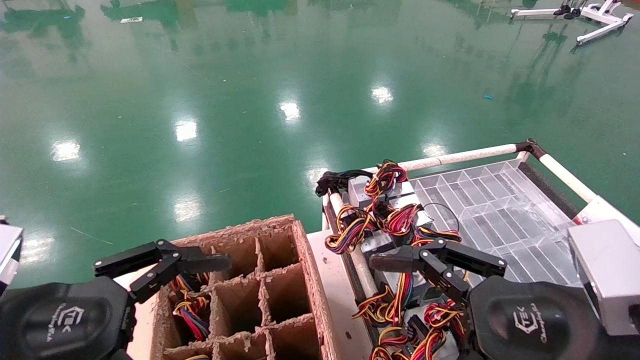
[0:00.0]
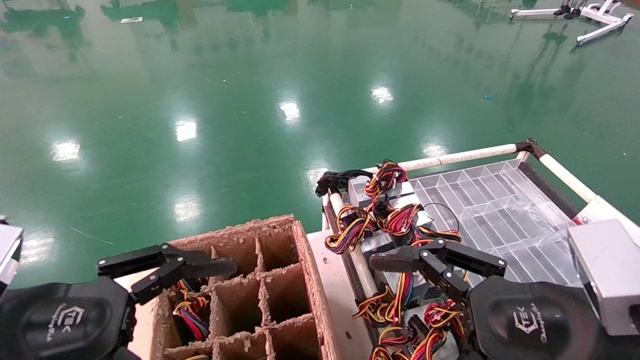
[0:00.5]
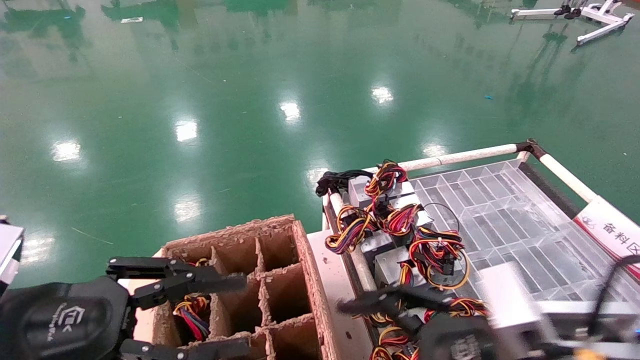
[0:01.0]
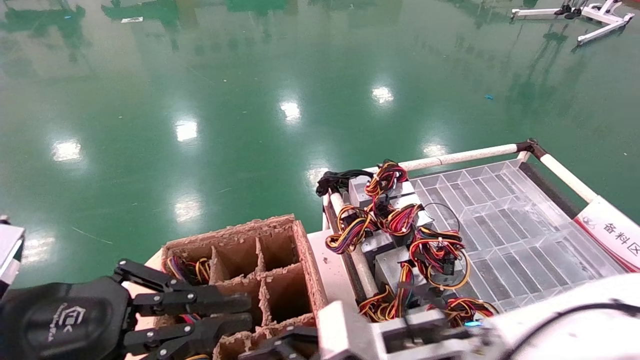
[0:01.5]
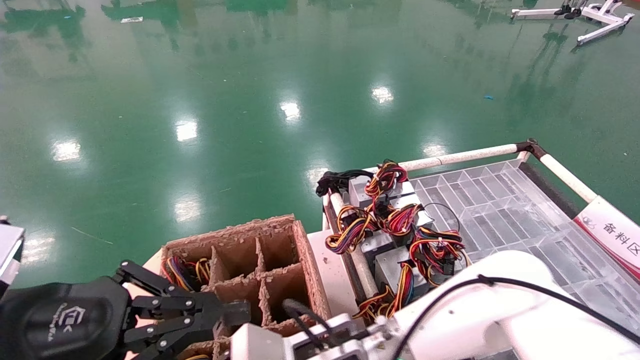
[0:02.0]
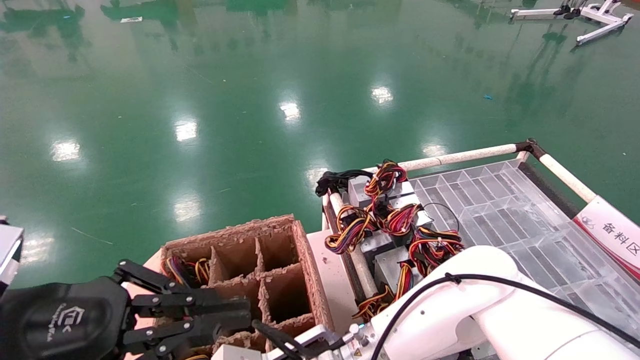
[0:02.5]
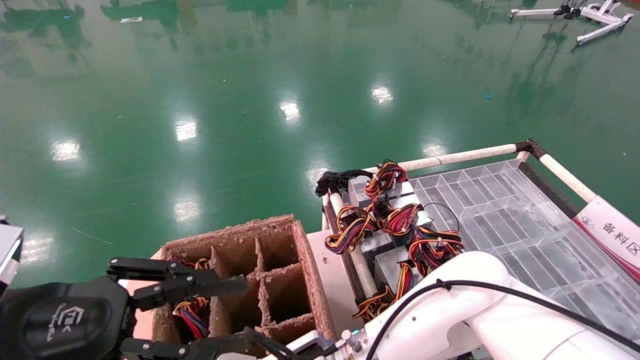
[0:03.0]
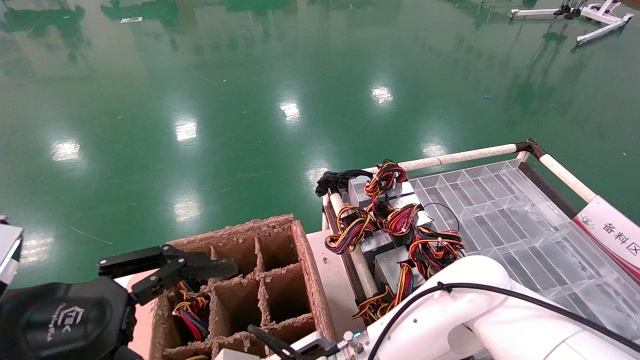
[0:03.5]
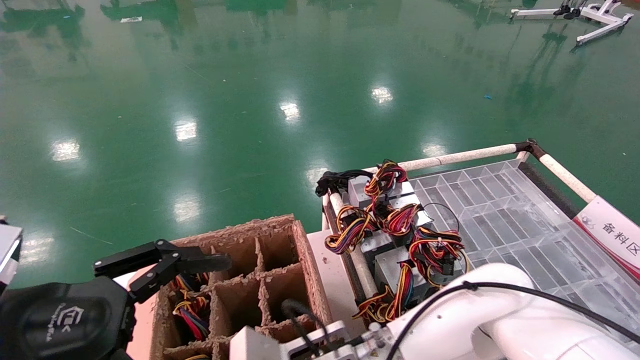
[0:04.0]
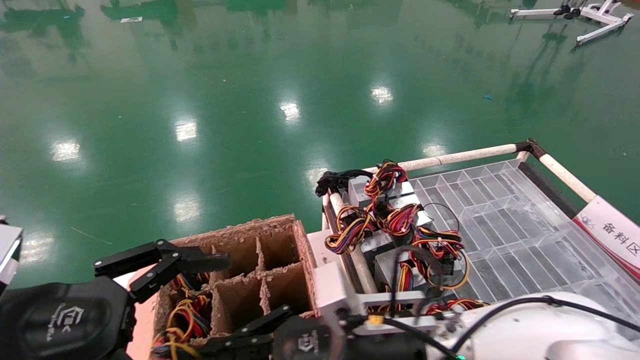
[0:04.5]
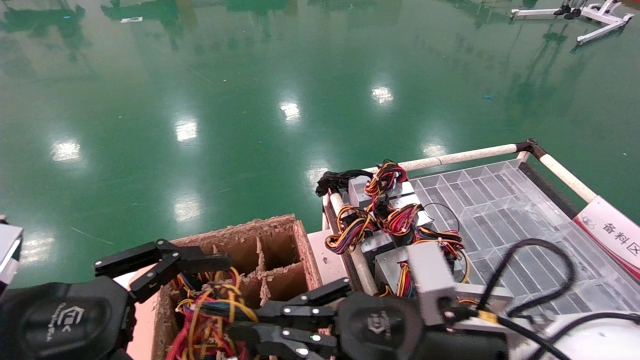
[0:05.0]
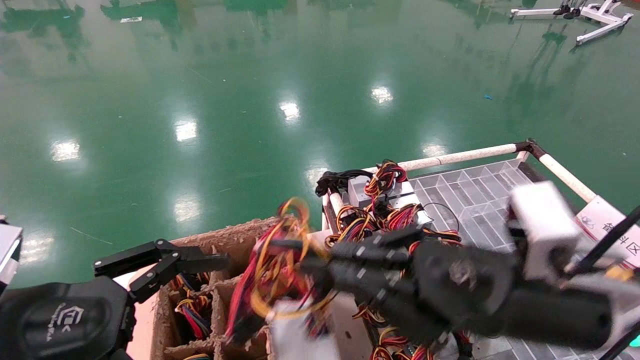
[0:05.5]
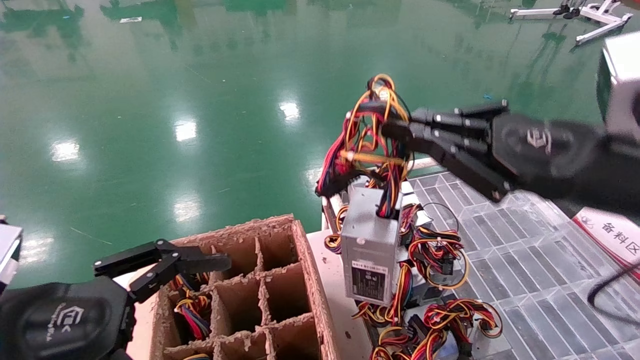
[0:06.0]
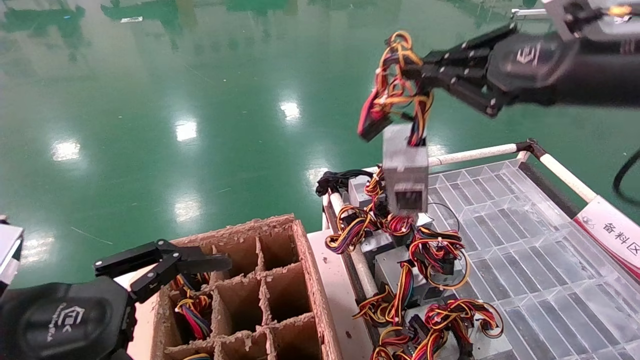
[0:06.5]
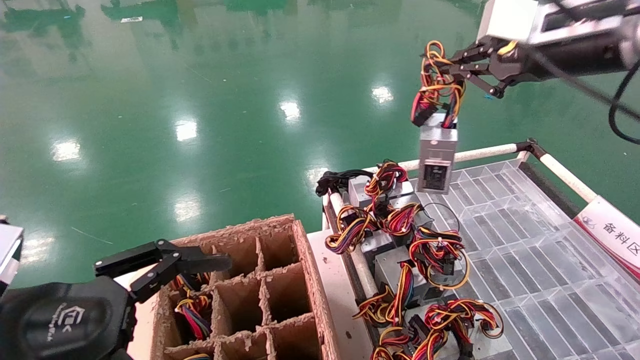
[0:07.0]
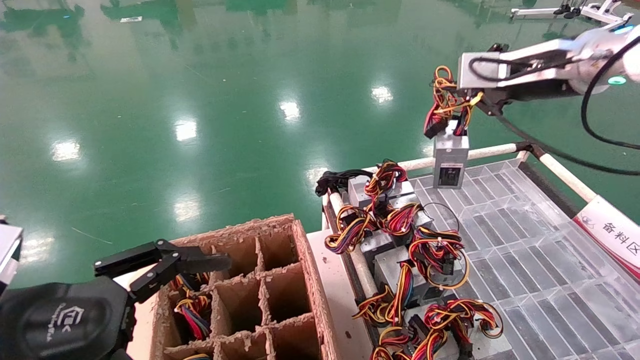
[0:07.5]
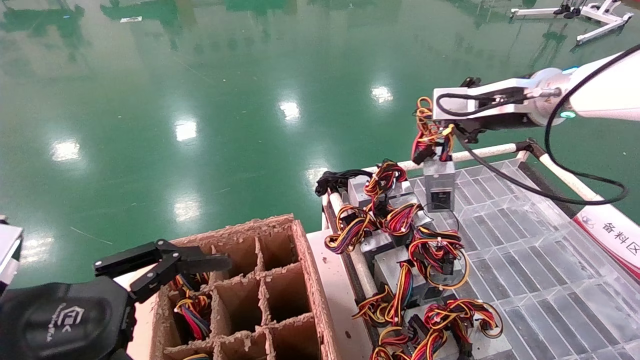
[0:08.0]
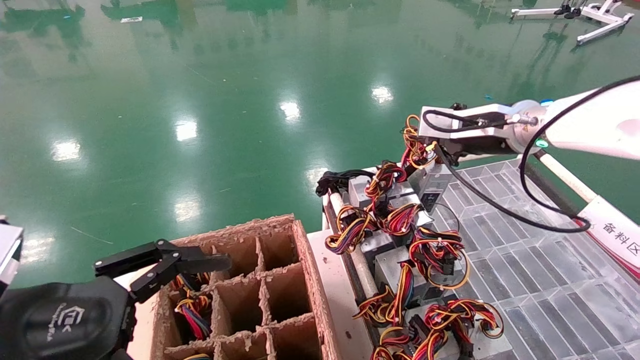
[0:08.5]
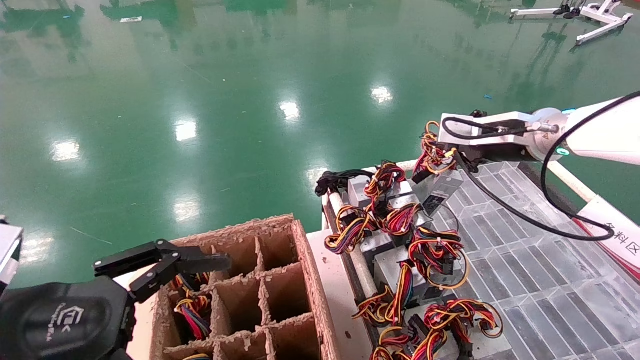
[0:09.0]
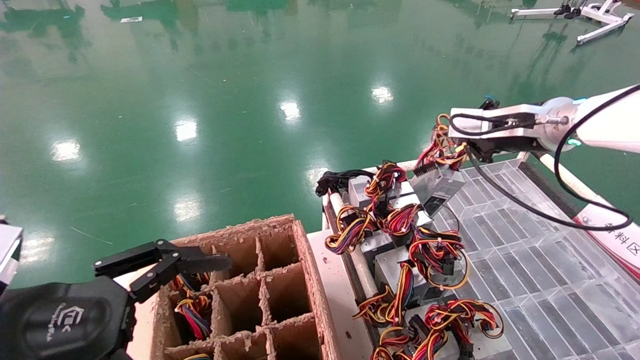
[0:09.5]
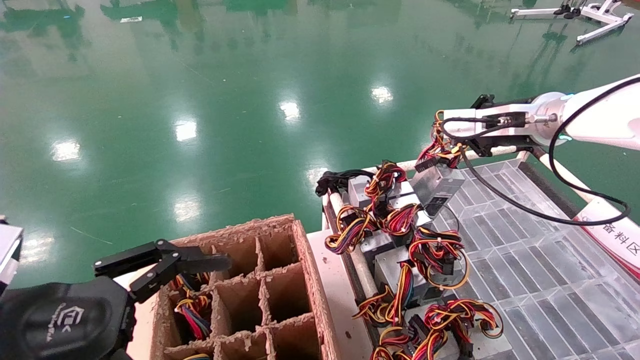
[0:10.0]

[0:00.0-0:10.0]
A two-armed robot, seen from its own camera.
Step, 0:01.0 to 0:03.5: Grab and lift the power supply from the large box.
0:00.0 to 0:02.0: The left gripper closes, while the right gripper goes approximately 25 cm to the left, forward and downward.
0:02.0 to 0:04.0: The left gripper opens up; the right gripper closes up.
0:04.0 to 0:06.0: The right gripper is displaced to the right and upward by roughly 35 cm.
0:06.0 to 0:08.0: The right gripper shifts approximately 20 cm forward and upward.
0:08.0 to 0:10.0: The grippers stay close to where they were, moving slightly.

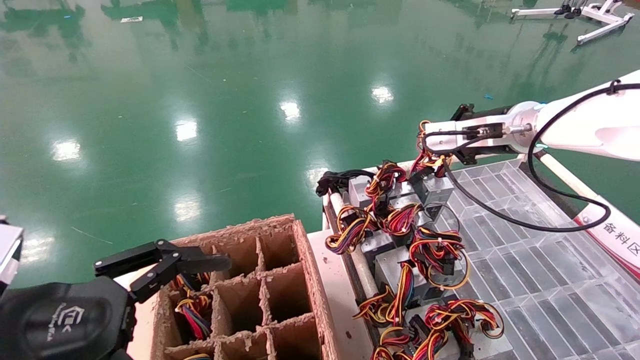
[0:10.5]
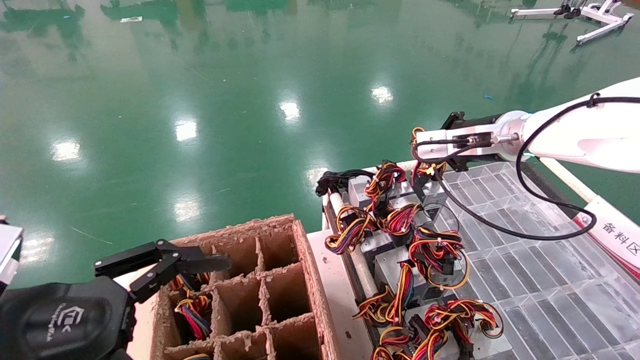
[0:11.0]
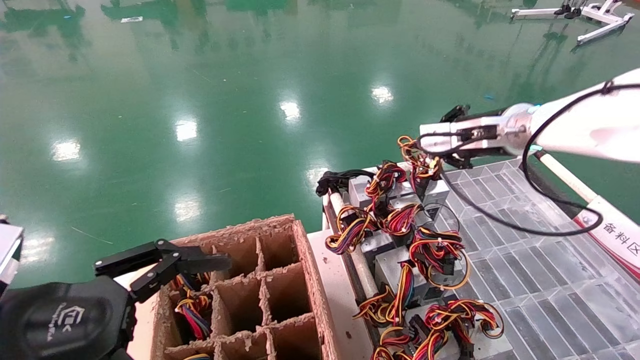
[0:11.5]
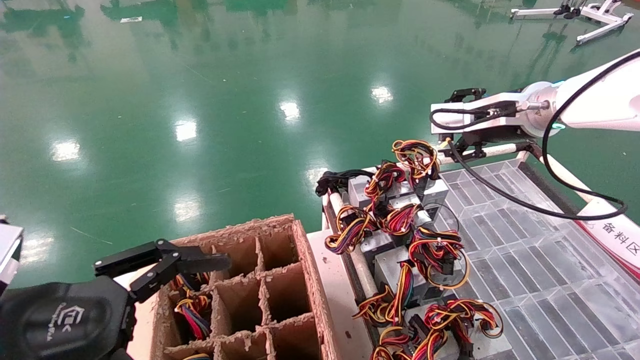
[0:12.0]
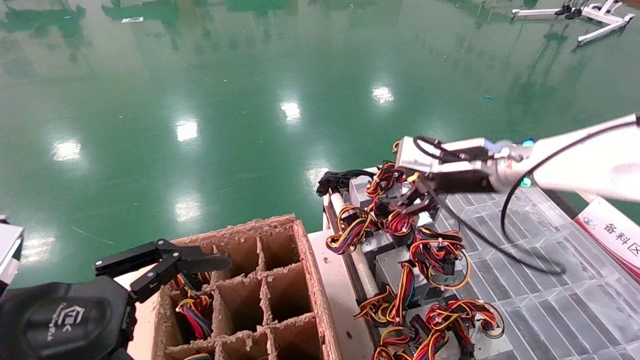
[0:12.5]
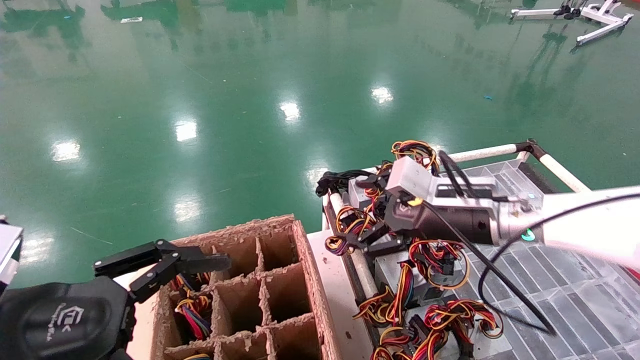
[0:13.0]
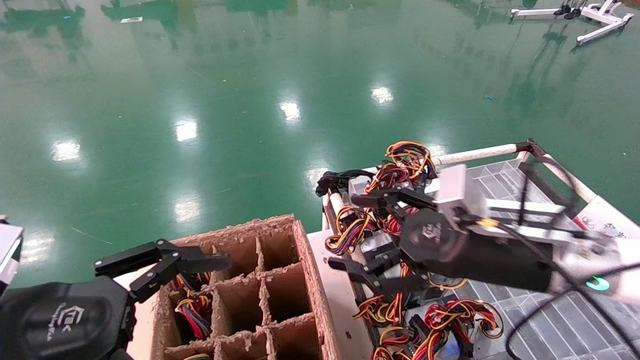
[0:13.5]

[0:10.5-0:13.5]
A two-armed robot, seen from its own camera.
0:10.5 to 0:12.0: The right gripper opens its fingers.
0:12.0 to 0:13.5: The right gripper is displaced downward and backward by approximately 20 cm, and opens up.
